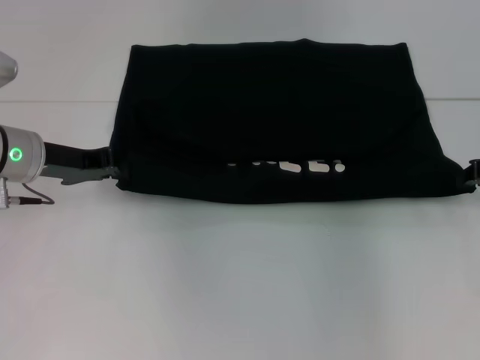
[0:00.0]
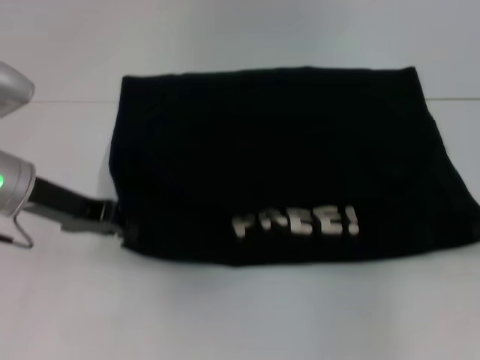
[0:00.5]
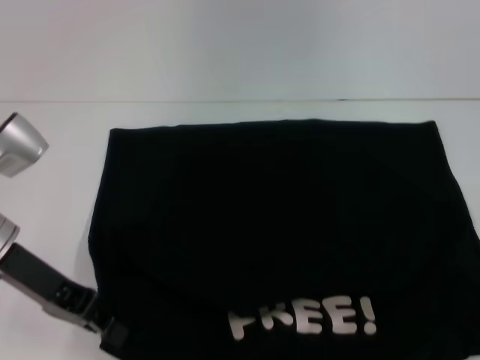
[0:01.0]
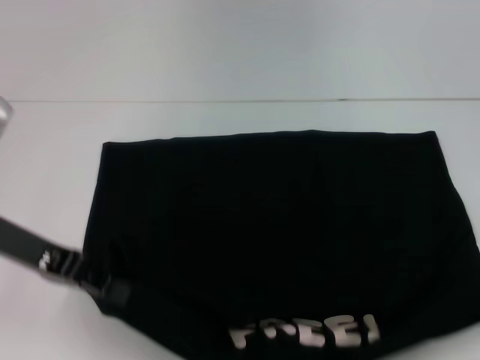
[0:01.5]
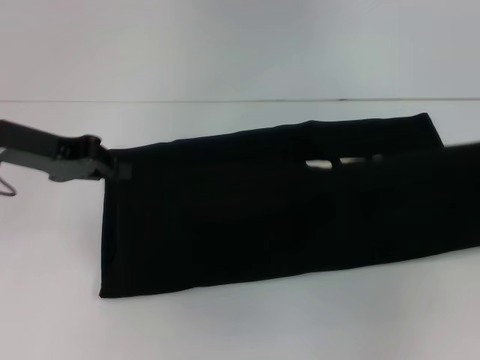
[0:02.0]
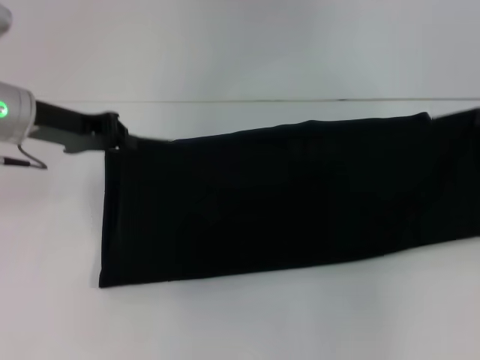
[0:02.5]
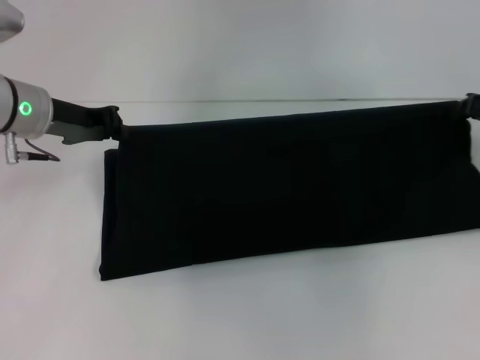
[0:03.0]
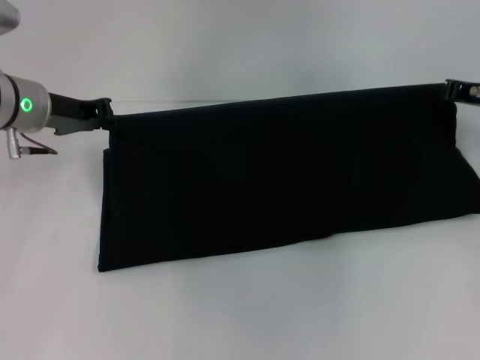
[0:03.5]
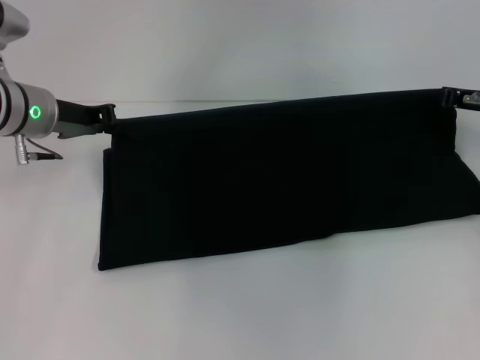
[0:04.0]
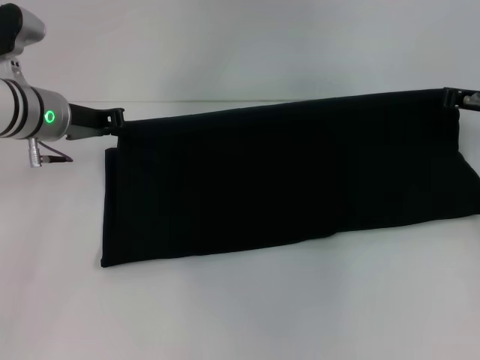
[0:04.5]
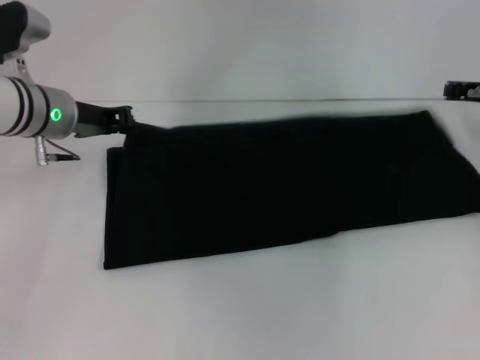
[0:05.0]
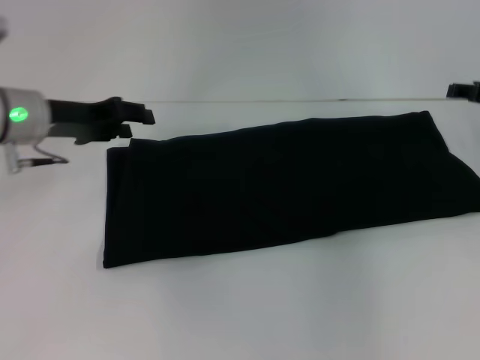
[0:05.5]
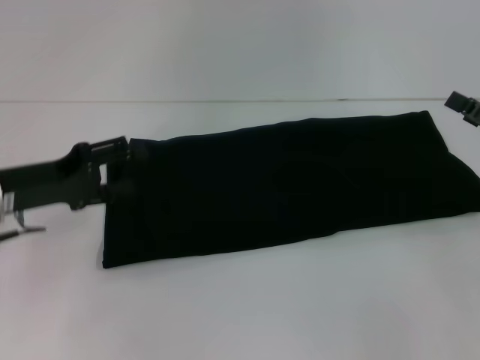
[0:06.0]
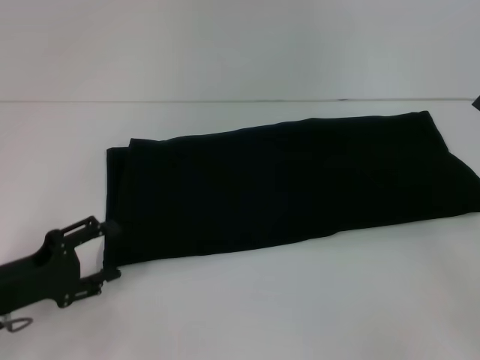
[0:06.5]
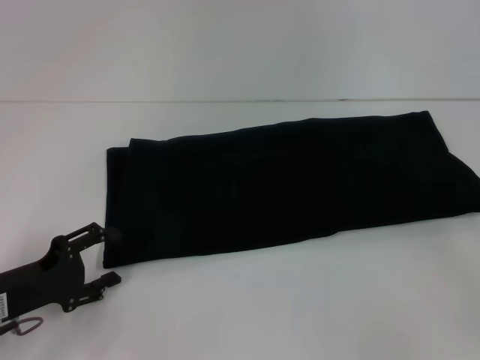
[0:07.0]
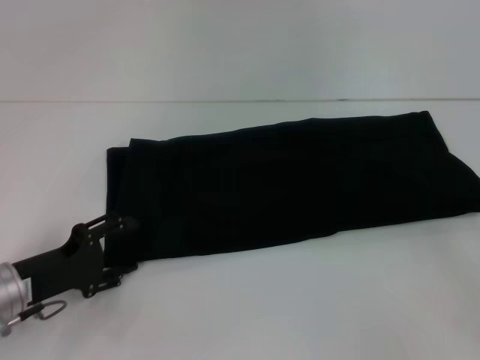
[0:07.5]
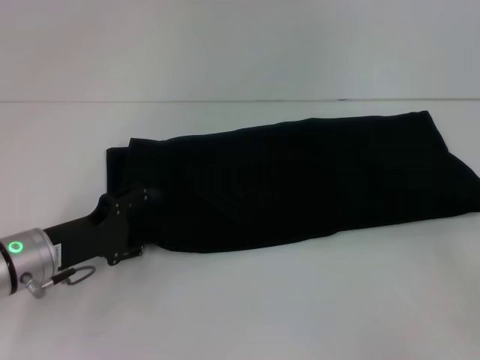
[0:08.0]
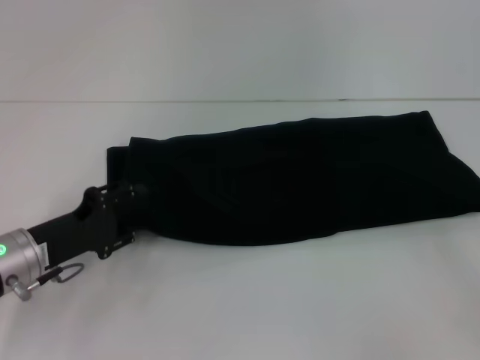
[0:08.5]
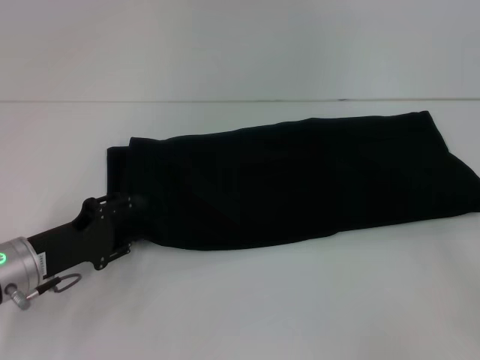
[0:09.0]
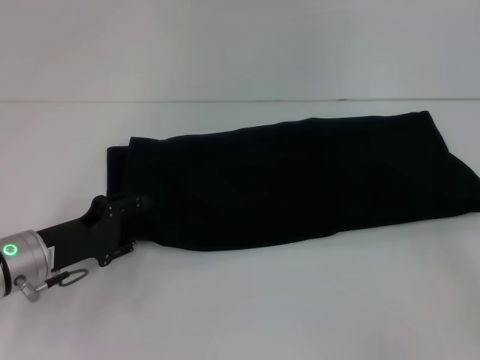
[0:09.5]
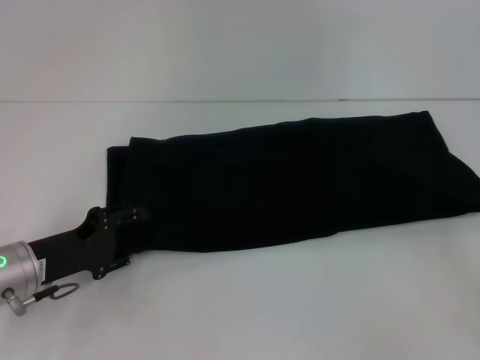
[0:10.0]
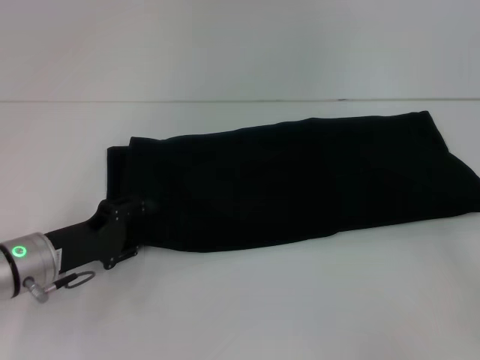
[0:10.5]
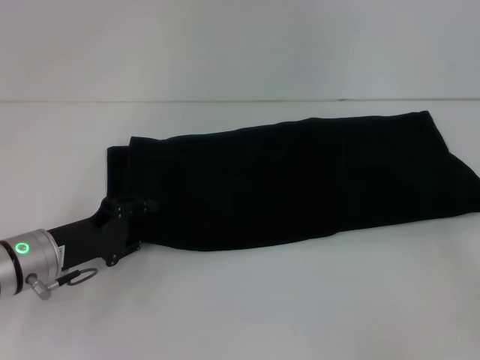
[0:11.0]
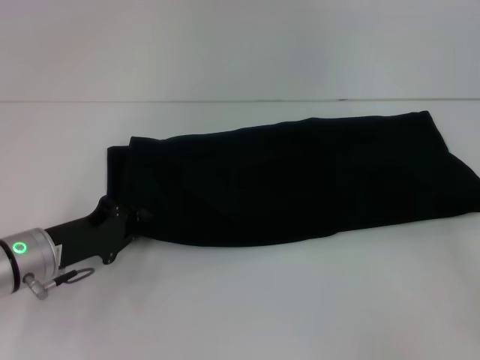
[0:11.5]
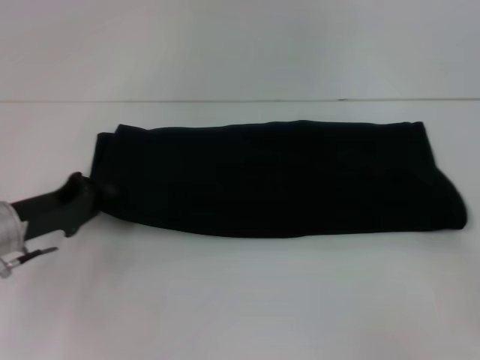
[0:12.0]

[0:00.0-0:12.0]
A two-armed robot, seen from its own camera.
Step, 0:01.5 to 0:05.0: Fold the clothes with your right hand.
0:00.0 to 0:02.0: The right gripper shifts approximately 10 cm to the right and upward. The left gripper is displaced upward by about 5 cm, and goes backward and returns, approximately 10 cm each way.
0:02.0 to 0:04.0: The left gripper moves forward, some 5 cm; the right gripper heads to the left, forward and downward, covering roughly 15 cm.
0:04.0 to 0:06.0: The left gripper moves backward, roughly 10 cm, and opens up; the right gripper moves backward and to the right, roughly 15 cm, and opens.
0:06.0 to 0:08.0: The left gripper moves downward, roughly 5 cm, while the right gripper goes some 5 cm backward.
0:08.0 to 0:10.0: The grippers make only small movements.
0:10.0 to 0:12.0: The left gripper closes up.

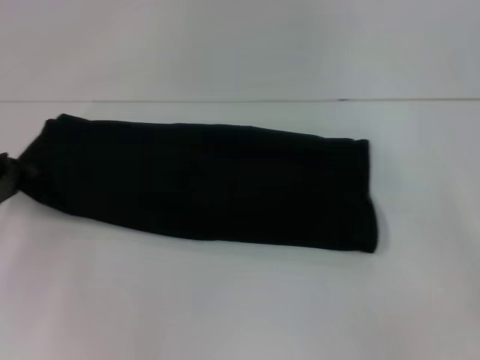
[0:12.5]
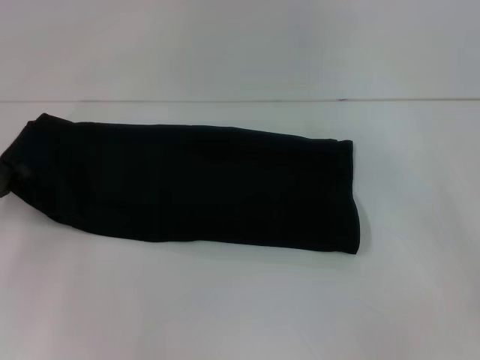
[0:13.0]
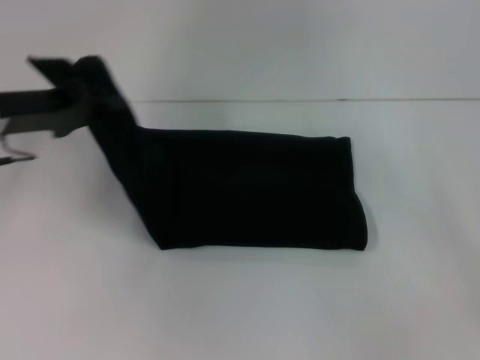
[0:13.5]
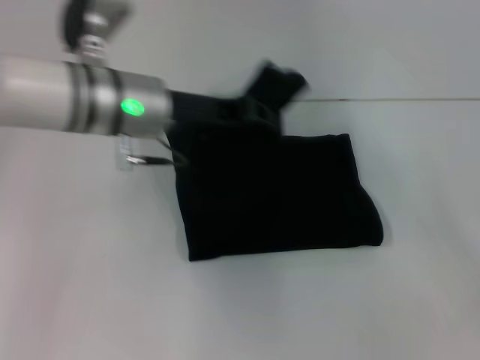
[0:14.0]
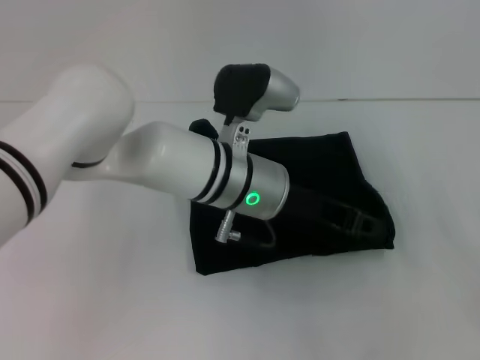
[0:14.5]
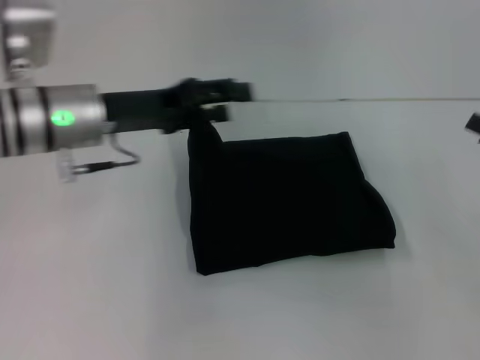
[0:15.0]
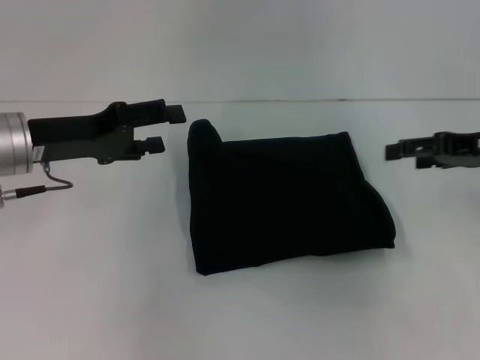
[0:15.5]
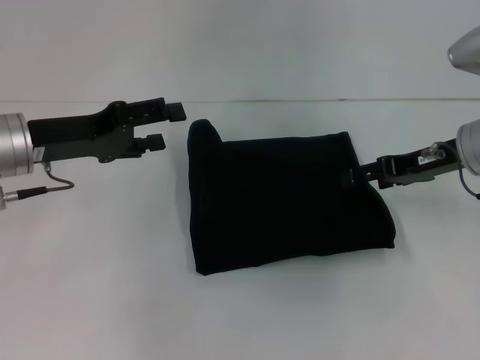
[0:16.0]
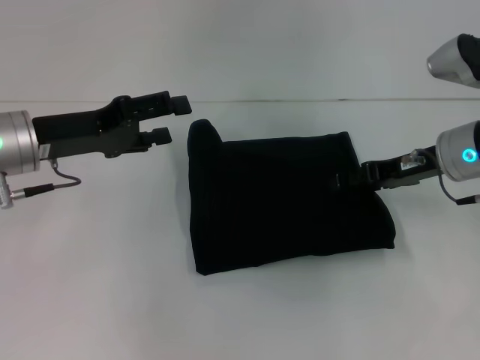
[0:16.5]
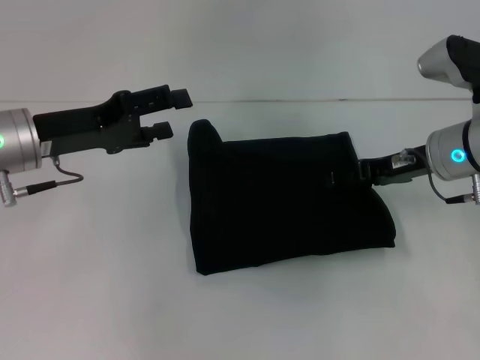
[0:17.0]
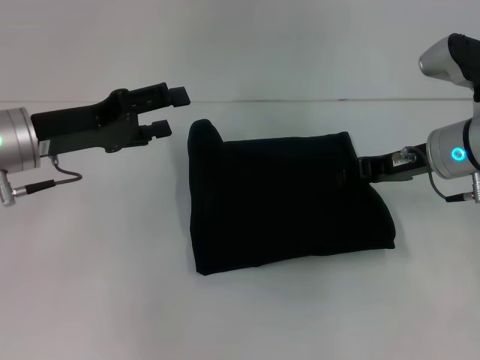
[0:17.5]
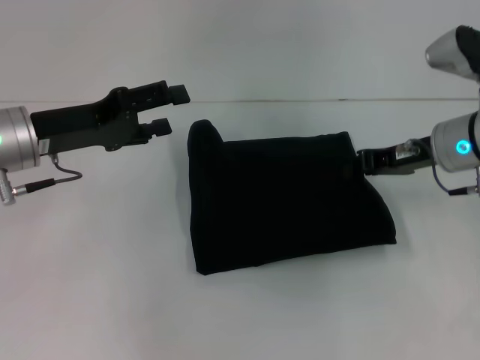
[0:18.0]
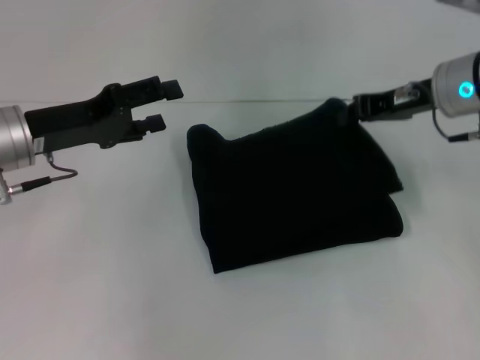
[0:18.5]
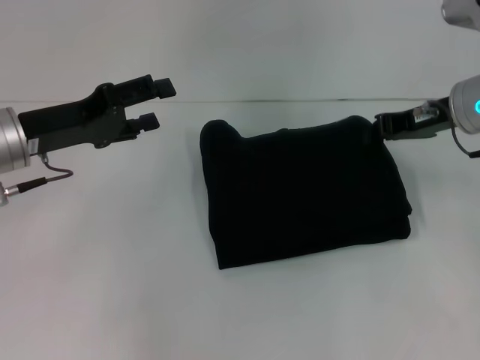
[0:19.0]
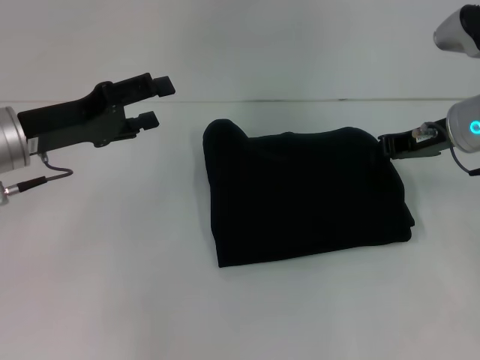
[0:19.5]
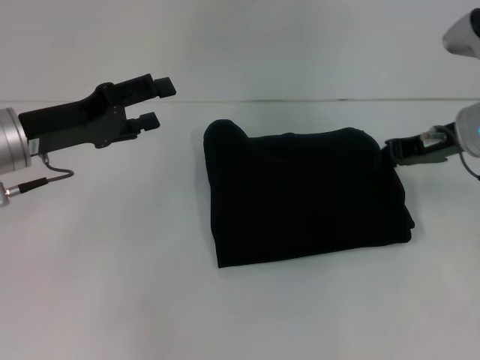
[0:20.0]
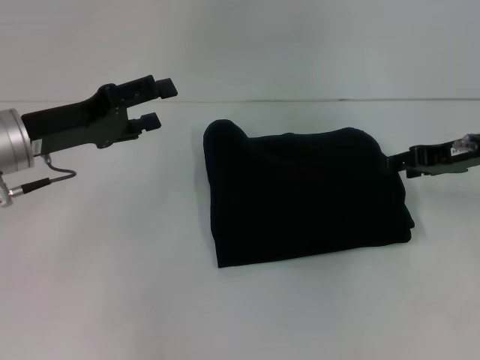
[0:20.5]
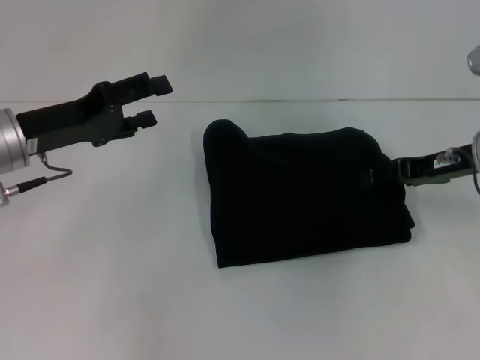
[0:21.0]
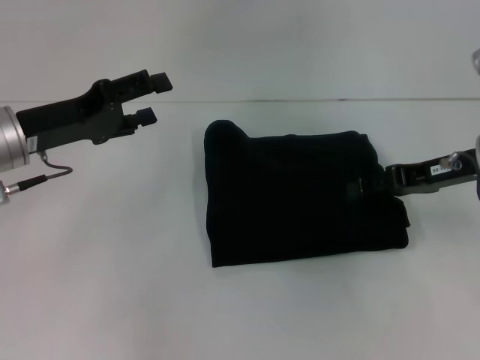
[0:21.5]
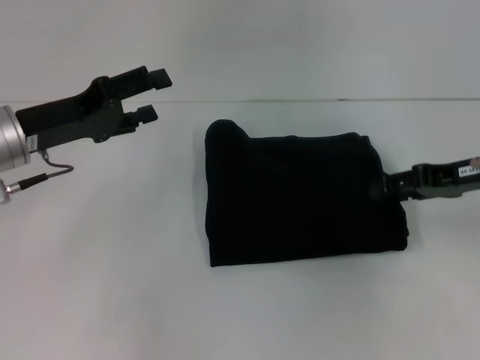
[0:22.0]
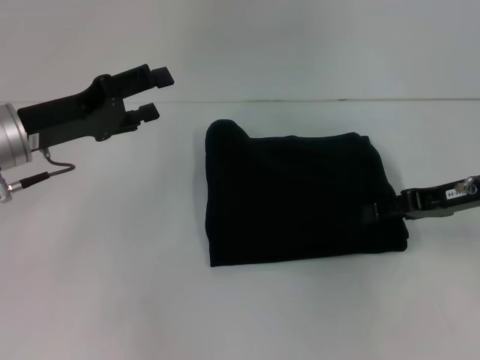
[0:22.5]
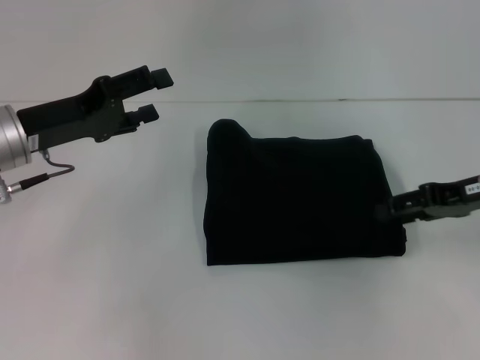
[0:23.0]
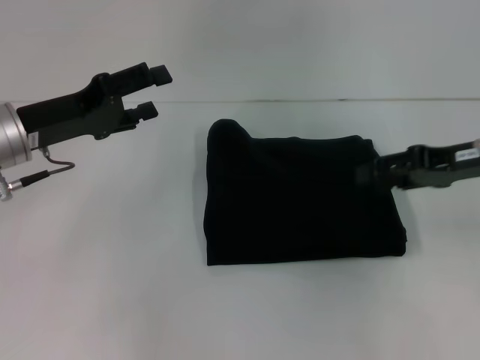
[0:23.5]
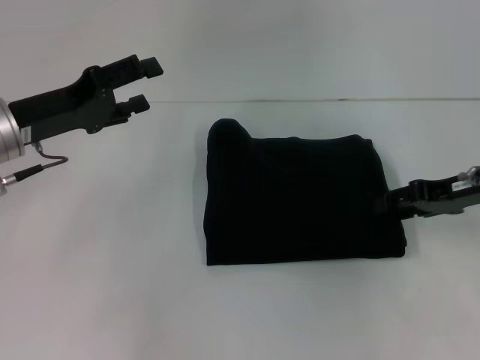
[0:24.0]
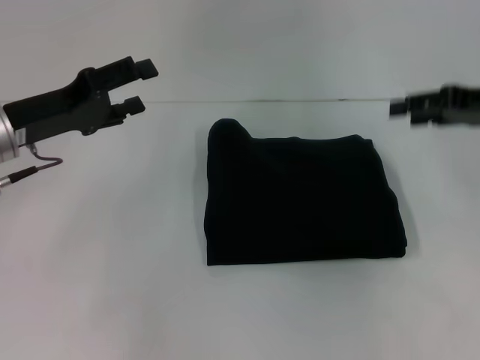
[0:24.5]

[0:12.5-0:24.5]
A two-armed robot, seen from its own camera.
Step, 0:12.5 to 0:14.5: Fold the clothes with your left hand.
0:12.5 to 0:14.5: The left gripper shifts about 30 cm to the right.
0:14.5 to 0:16.5: The left gripper heads to the left, covering about 20 cm, and opens its fingers, while the right gripper goes approximately 20 cm to the left and forward.
0:16.5 to 0:18.5: The right gripper moves upward, some 5 cm, and closes.
0:18.5 to 0:20.5: The right gripper moves to the right, some 5 cm, and opens up.
0:20.5 to 0:22.5: There are only small adjustments of the grippers.
0:22.5 to 0:24.5: The right gripper swings up and down, some 10 cm each way, with 2 reversals.

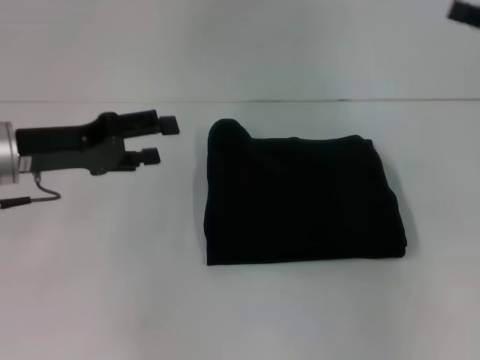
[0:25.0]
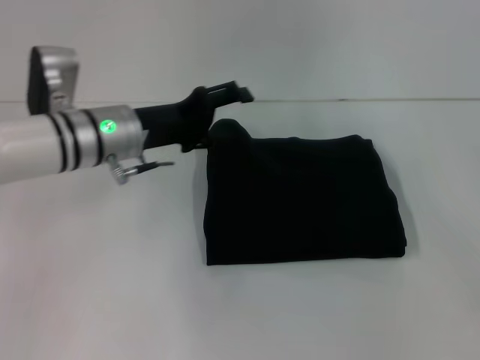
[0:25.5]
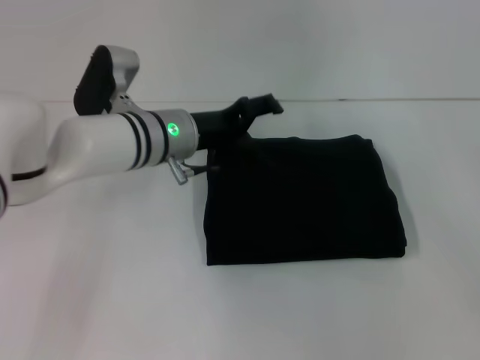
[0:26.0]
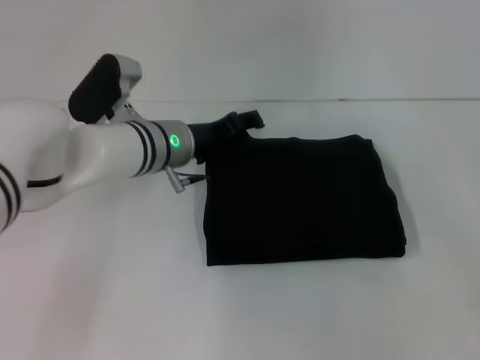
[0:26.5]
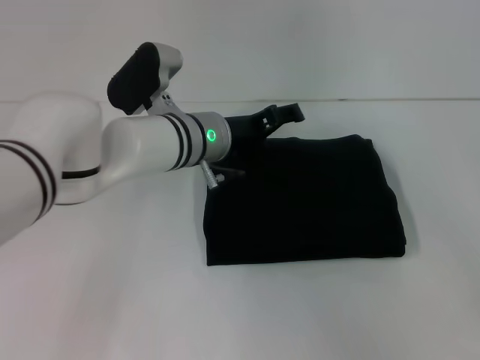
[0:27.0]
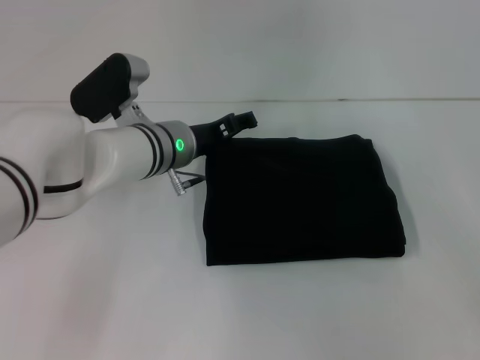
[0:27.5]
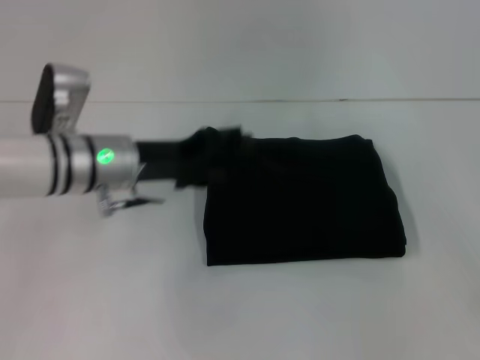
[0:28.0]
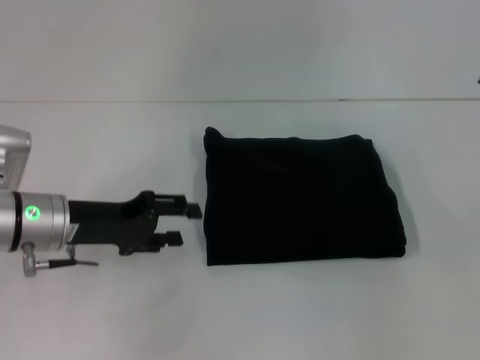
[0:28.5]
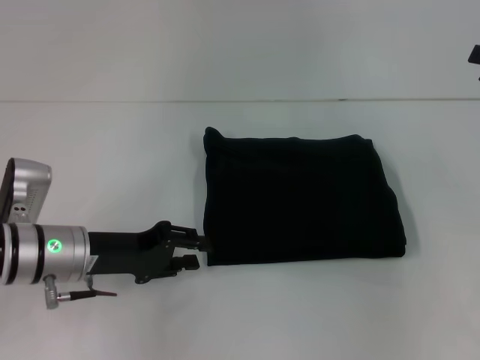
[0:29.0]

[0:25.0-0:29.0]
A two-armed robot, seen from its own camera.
0:25.0 to 0:27.0: The left gripper shifts about 20 cm to the right. The right gripper travels downward and backward by approximately 10 cm.
0:27.0 to 0:29.0: The left gripper is displaced to the left and backward by roughly 20 cm, and closes its fingers, while the right gripper travels forward and upward by some 10 cm.
